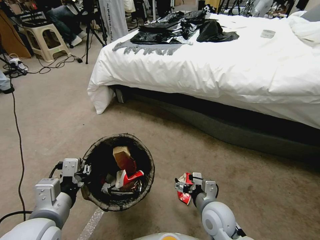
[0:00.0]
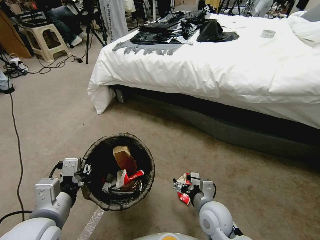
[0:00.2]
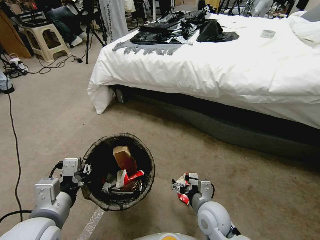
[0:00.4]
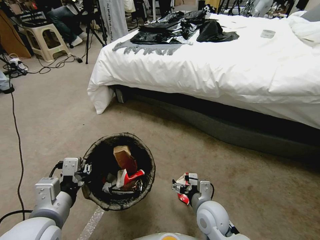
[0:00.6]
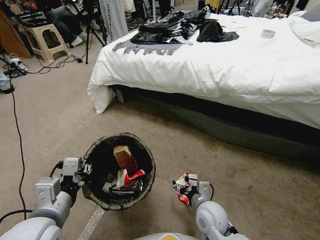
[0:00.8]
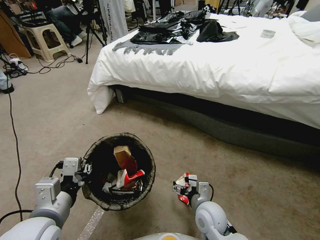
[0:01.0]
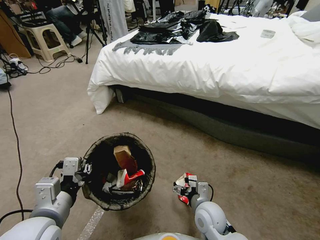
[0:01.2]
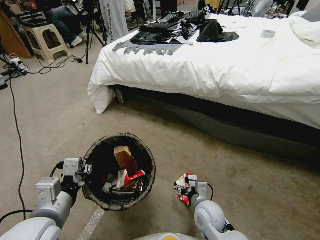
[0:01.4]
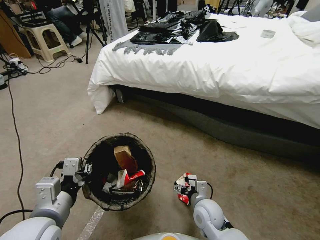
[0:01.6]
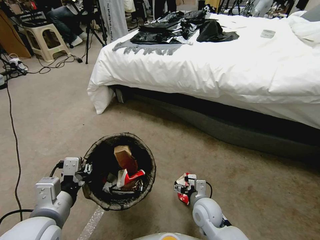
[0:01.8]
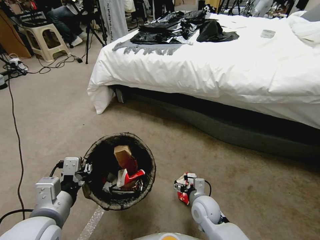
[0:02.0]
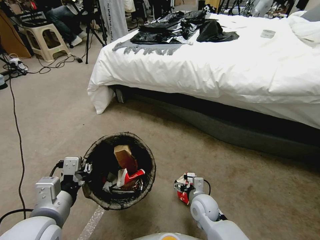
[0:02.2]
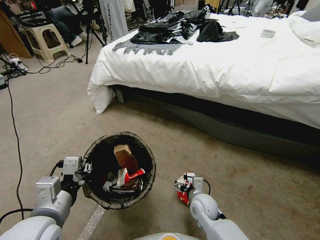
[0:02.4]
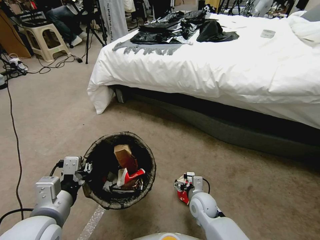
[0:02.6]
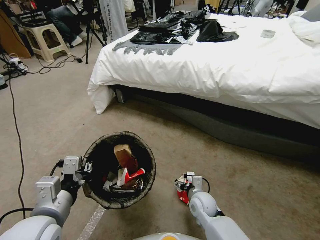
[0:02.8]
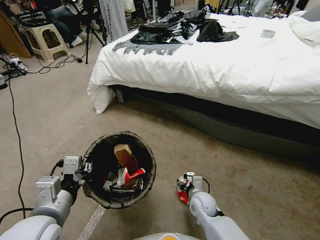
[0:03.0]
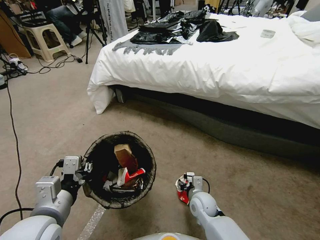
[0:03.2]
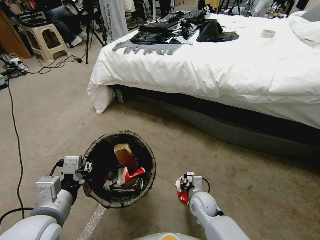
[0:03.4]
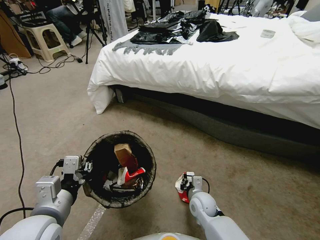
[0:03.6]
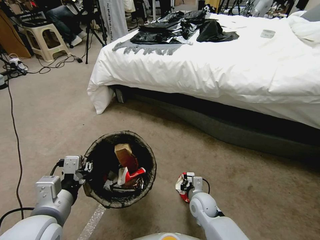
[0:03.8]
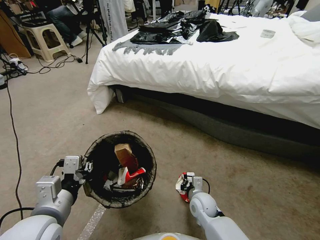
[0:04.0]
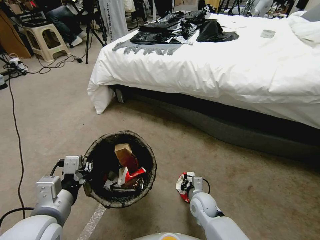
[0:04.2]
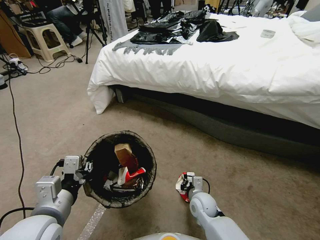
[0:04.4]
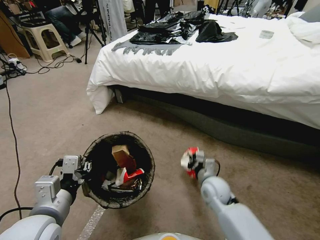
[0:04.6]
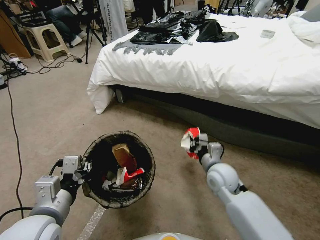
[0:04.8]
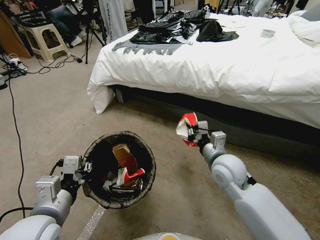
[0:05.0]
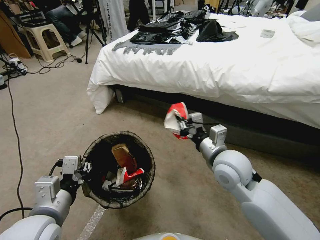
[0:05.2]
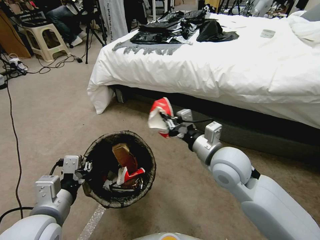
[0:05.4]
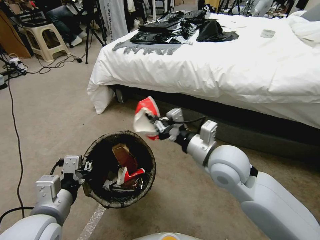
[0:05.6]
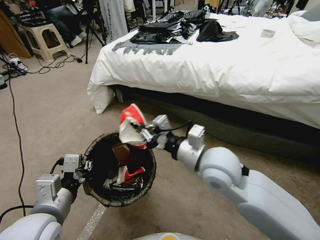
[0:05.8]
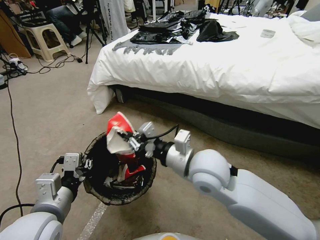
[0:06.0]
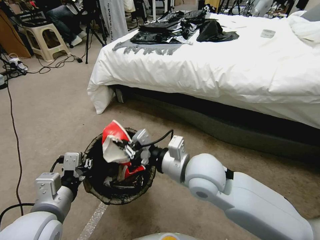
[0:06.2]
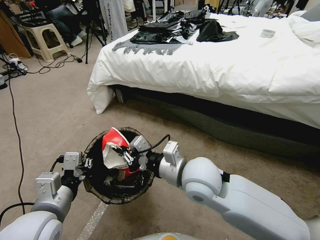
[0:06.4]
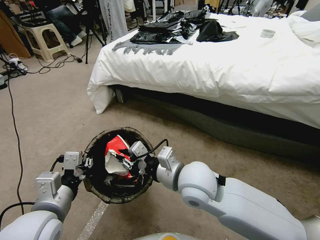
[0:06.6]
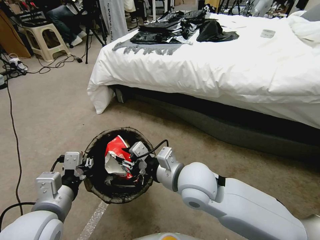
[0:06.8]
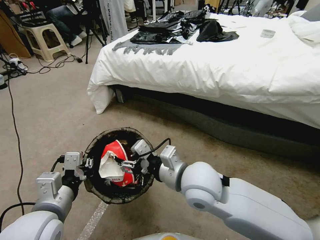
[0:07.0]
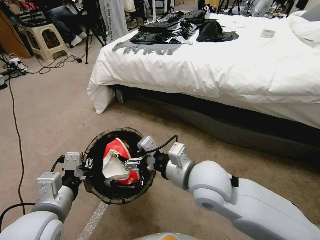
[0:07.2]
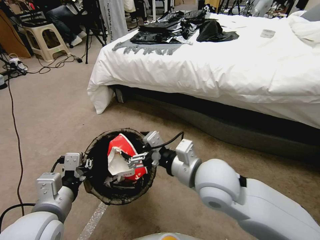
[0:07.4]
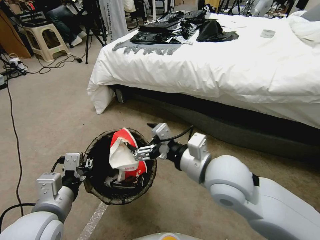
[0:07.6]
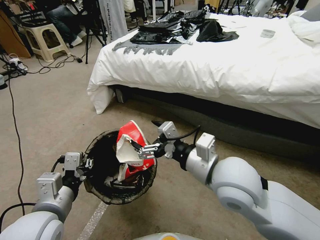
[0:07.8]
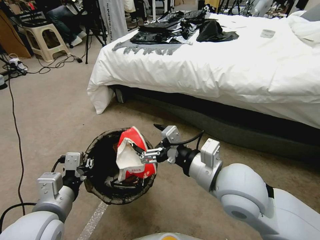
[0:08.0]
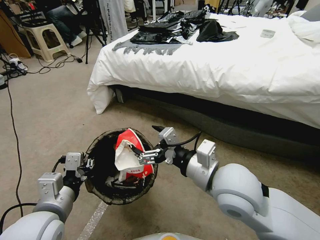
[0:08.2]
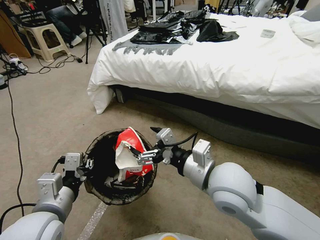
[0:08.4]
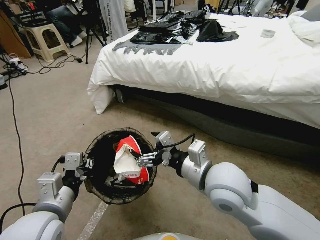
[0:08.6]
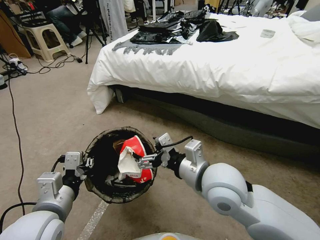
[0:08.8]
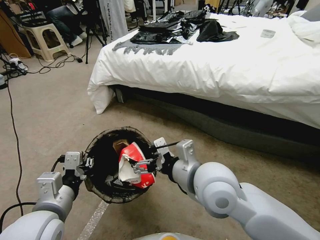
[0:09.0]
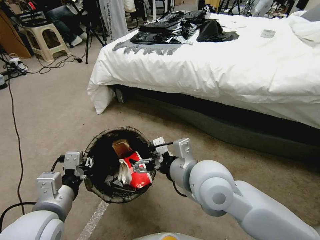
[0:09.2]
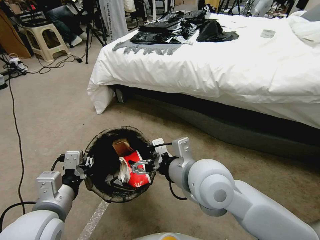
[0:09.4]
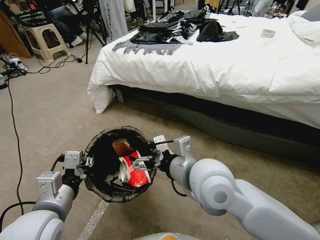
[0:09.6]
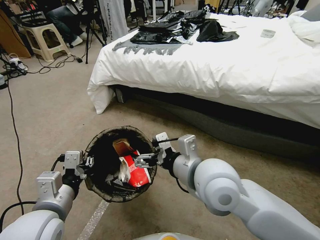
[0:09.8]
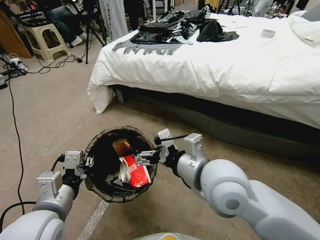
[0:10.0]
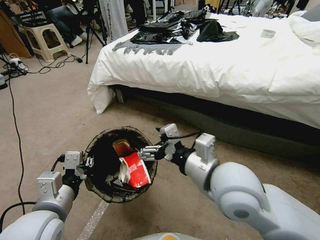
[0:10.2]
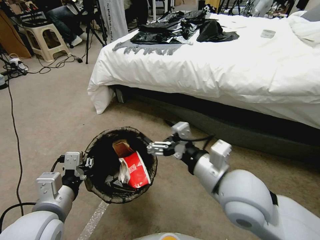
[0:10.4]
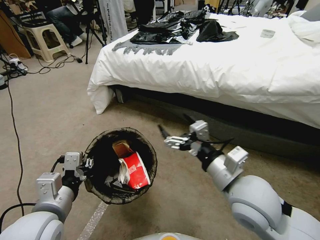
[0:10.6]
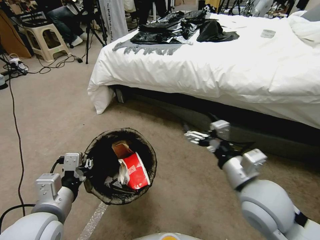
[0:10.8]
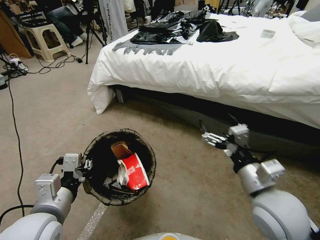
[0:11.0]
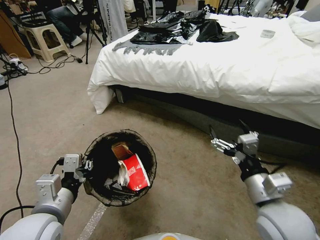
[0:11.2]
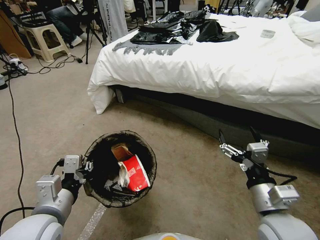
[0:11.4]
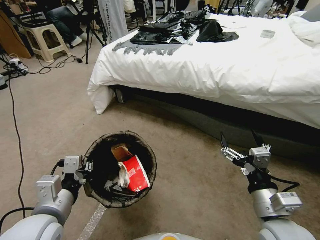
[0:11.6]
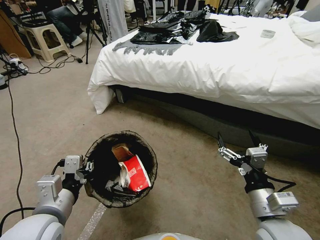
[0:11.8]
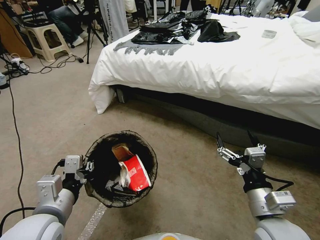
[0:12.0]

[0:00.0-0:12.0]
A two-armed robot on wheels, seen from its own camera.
Task of the whole recording: Pick up the trash bin, then pick up the garbage from the floor and place it into the trash bin.
0:00.0 to 0:01.6: The right gripper goes approximately 5 cm downward.
0:01.6 to 0:03.0: The right gripper moves roughly 5 cm.
0:03.0 to 0:04.4: The right gripper closes.
0:04.4 to 0:06.0: The right gripper goes some 30 cm upward.
0:06.0 to 0:07.6: The right gripper opens its fingers.
0:09.0 to 0:10.4: The right gripper ends up approximately 5 cm from where it was.
0:10.4 to 0:12.0: The right gripper heads downward, to the right and backward, covering some 15 cm.

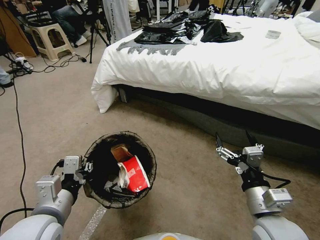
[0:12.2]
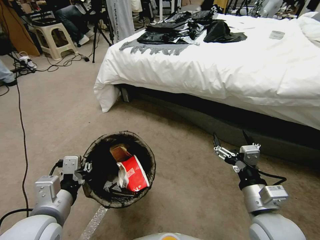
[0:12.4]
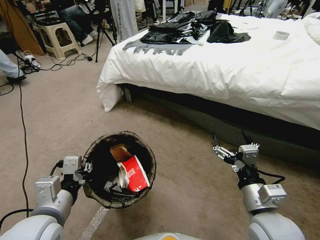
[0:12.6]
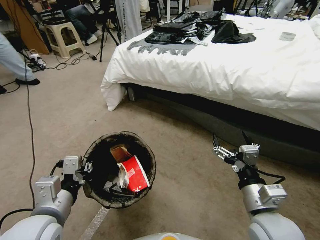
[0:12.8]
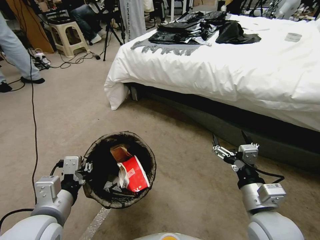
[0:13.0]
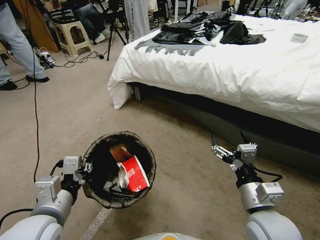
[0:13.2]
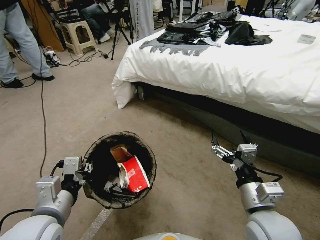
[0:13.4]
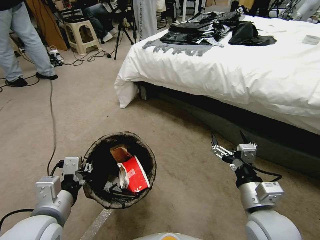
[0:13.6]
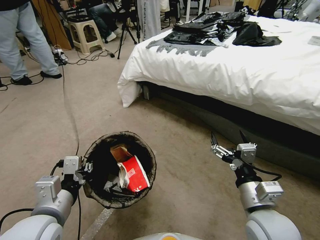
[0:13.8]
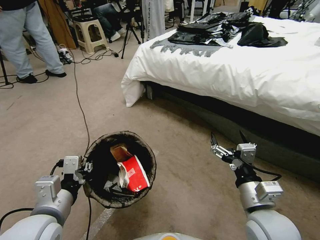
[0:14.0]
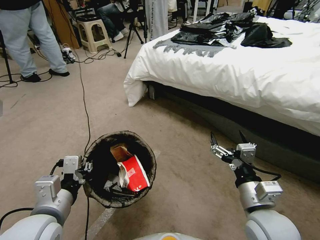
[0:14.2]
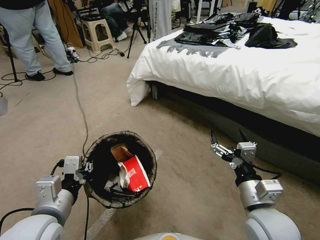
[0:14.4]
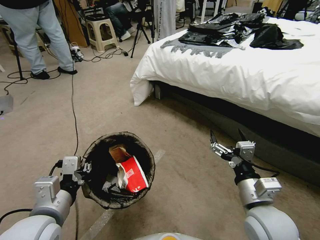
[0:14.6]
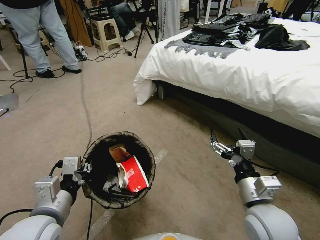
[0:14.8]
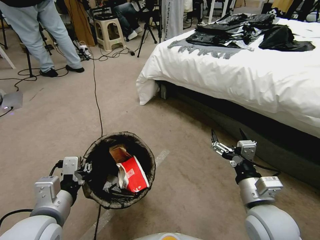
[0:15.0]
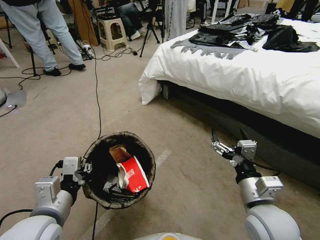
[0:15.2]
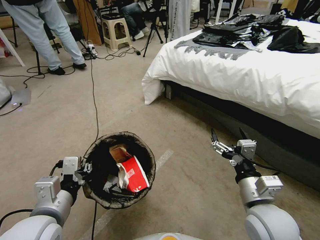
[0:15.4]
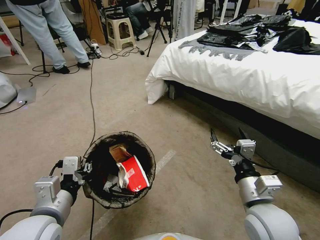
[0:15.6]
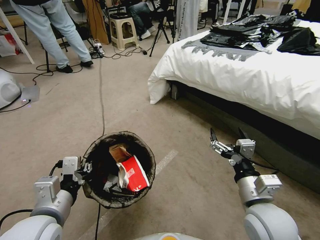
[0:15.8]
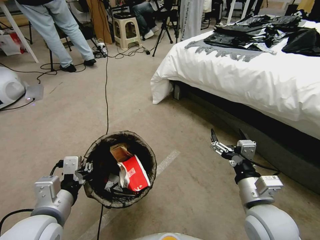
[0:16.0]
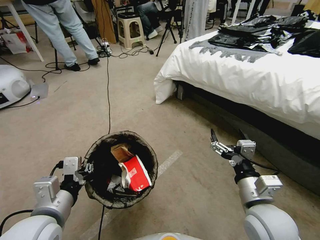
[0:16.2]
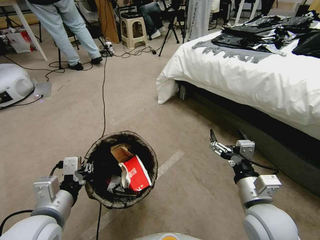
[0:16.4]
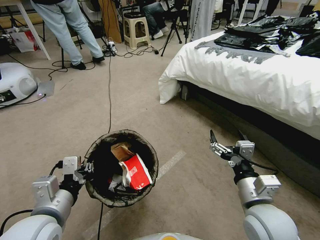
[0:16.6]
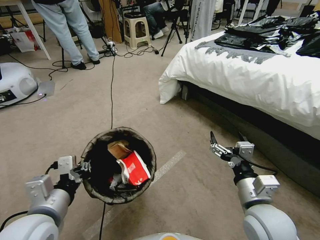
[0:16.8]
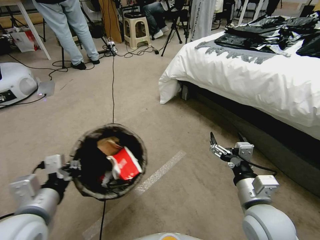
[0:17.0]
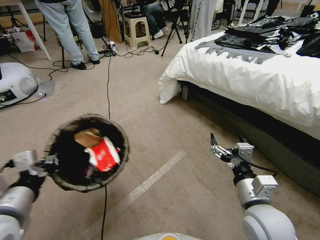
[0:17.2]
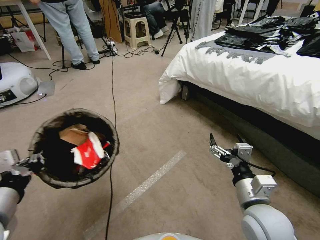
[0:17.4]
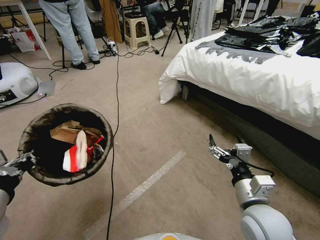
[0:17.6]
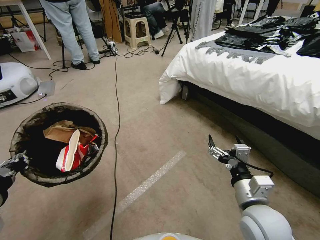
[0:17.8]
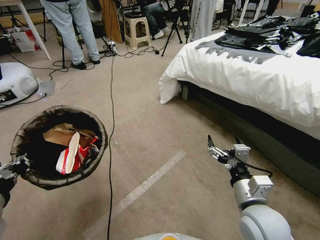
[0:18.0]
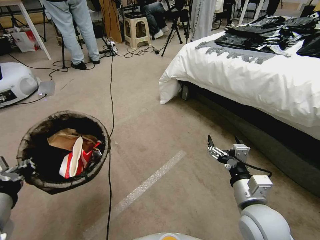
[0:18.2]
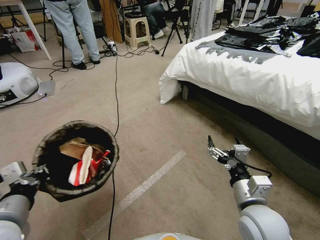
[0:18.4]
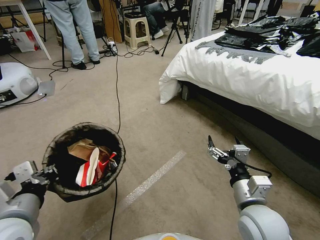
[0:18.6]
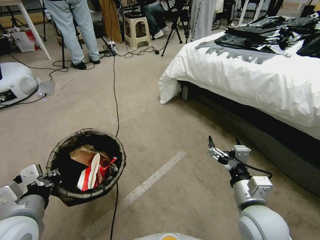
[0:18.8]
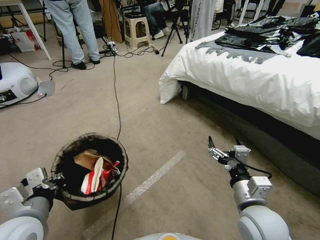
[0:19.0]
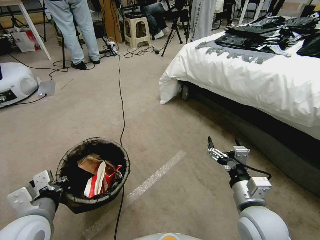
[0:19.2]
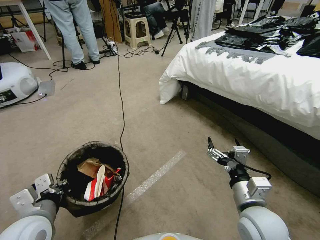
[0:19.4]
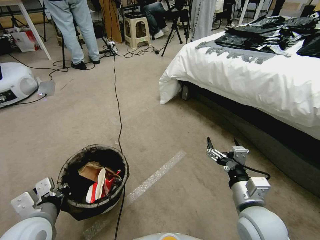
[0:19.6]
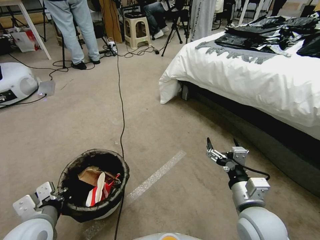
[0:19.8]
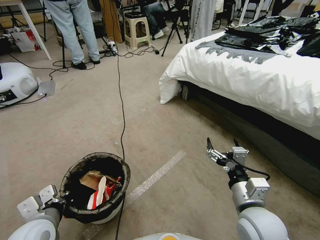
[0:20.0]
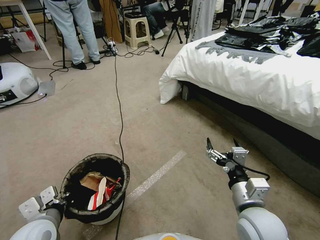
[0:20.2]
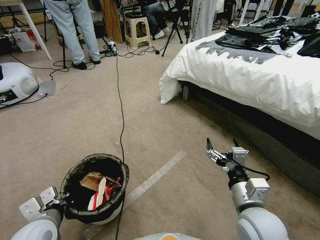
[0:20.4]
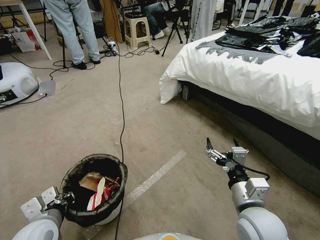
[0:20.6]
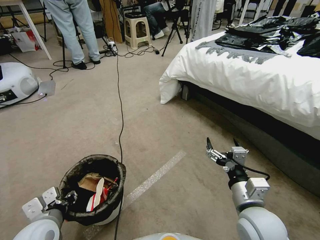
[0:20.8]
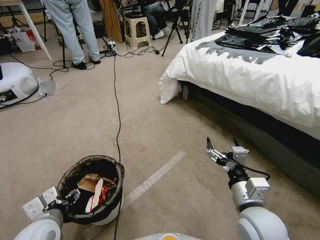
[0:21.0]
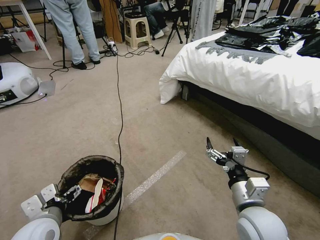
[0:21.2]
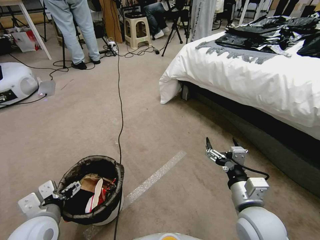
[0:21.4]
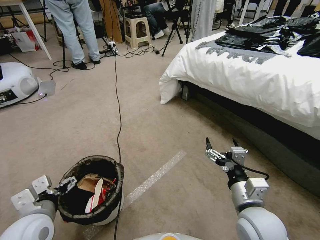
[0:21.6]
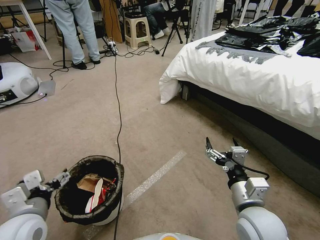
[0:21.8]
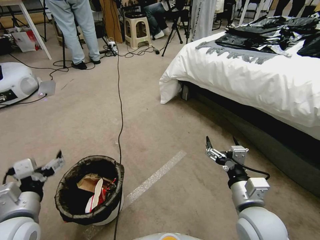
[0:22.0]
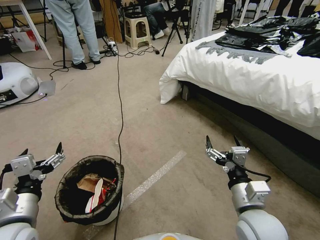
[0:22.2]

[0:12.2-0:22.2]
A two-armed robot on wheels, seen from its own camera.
Task of the whole recording: Pick up the trash bin, then pick up the garbage from the floor and place it into the trash bin.
0:16.4 to 0:18.0: The left gripper is displaced to the left and upward by about 10 cm.
0:18.0 to 0:19.4: The left gripper travels downward by some 10 cm.
0:19.4 to 0:20.8: The left gripper is displaced downward by about 5 cm, and opens up.
0:20.8 to 0:22.2: The left gripper is displaced upward by about 5 cm, and opens up.
